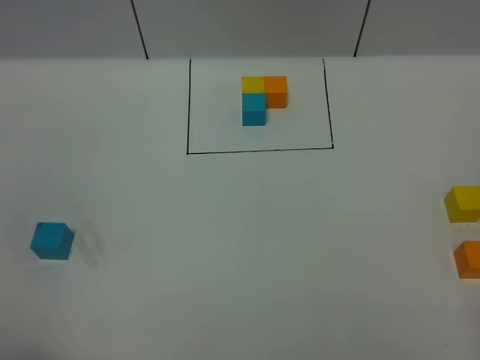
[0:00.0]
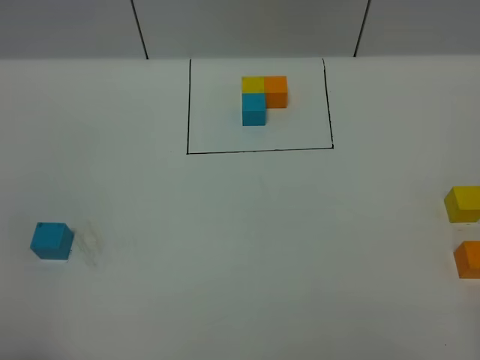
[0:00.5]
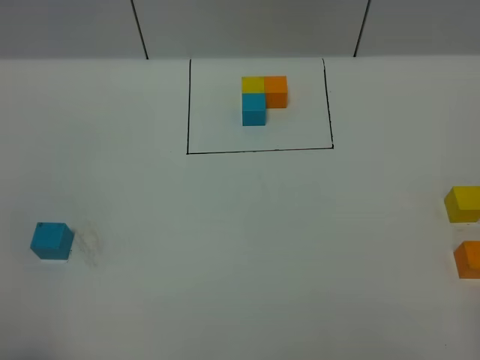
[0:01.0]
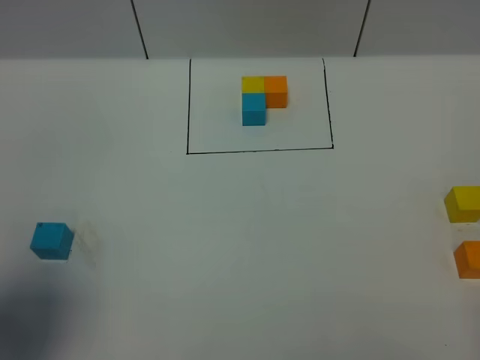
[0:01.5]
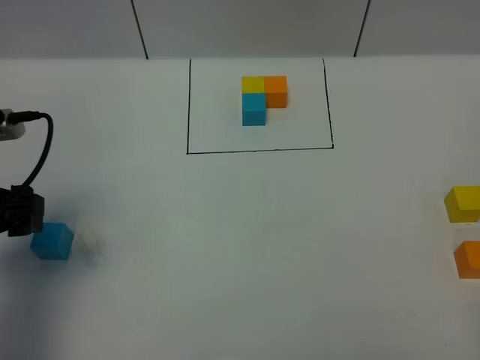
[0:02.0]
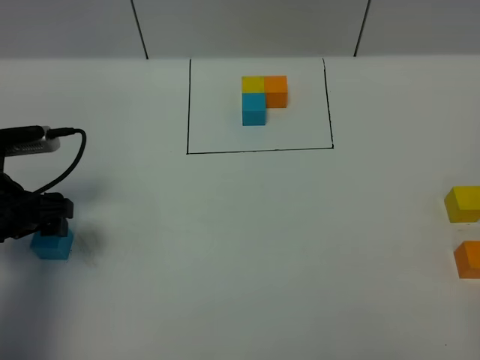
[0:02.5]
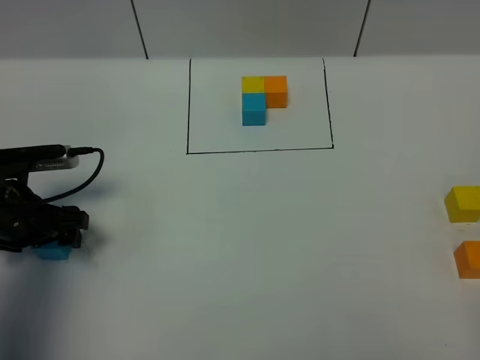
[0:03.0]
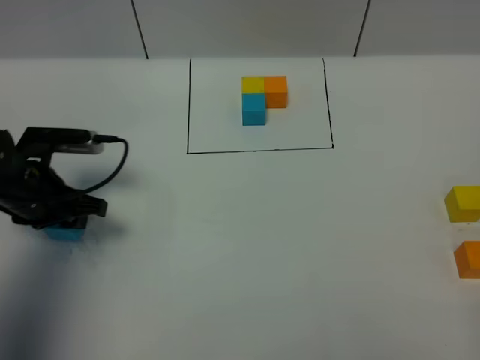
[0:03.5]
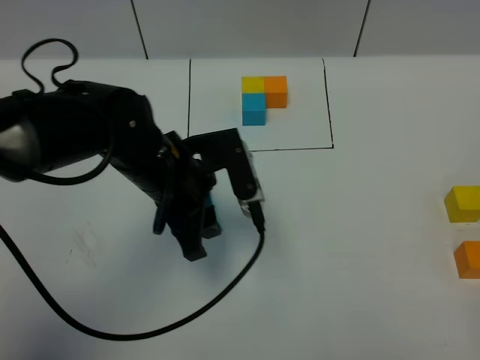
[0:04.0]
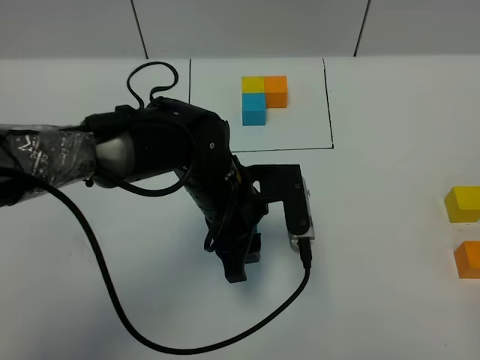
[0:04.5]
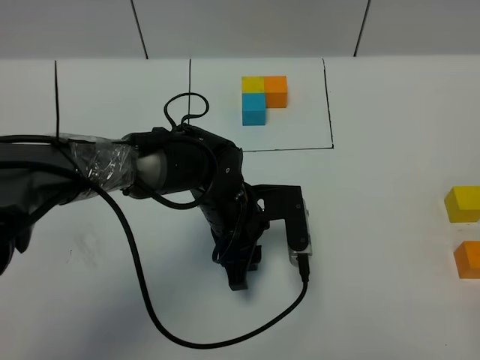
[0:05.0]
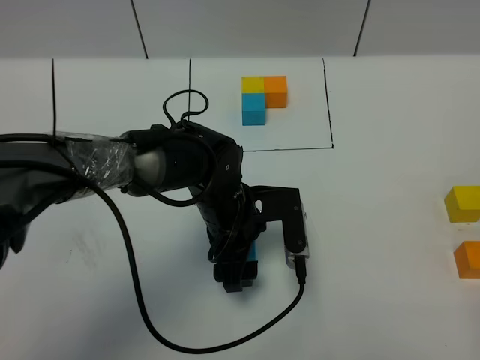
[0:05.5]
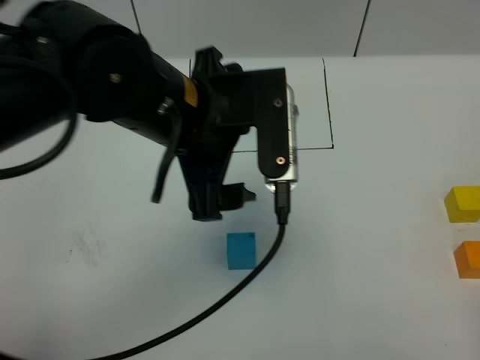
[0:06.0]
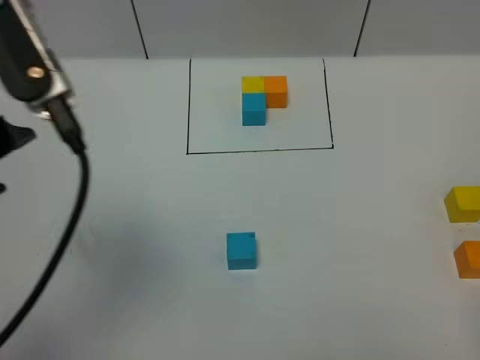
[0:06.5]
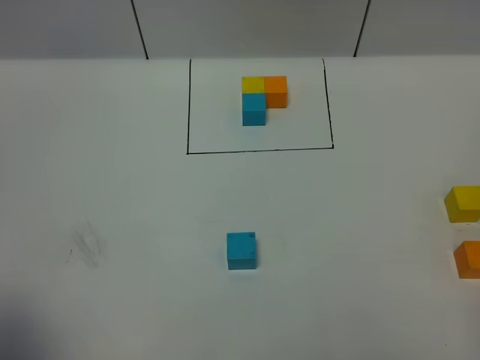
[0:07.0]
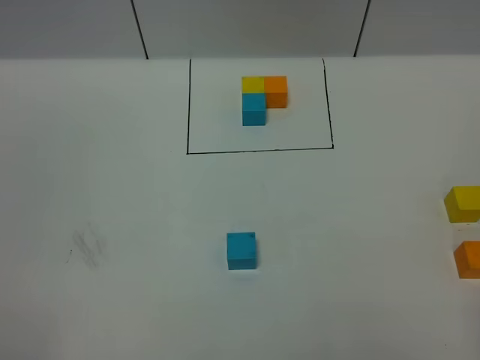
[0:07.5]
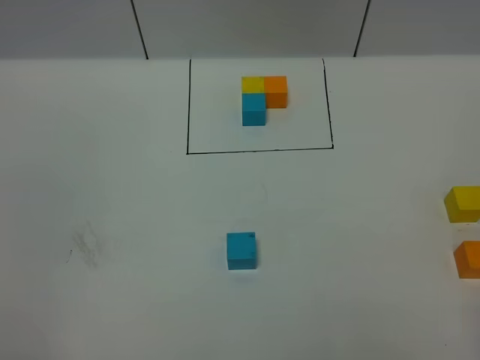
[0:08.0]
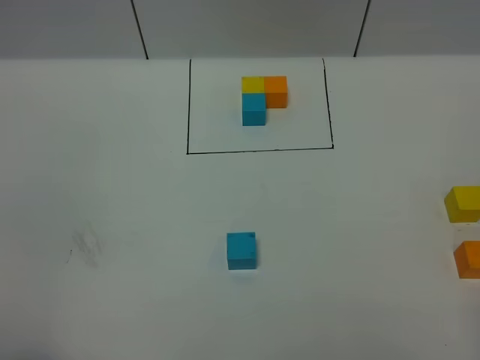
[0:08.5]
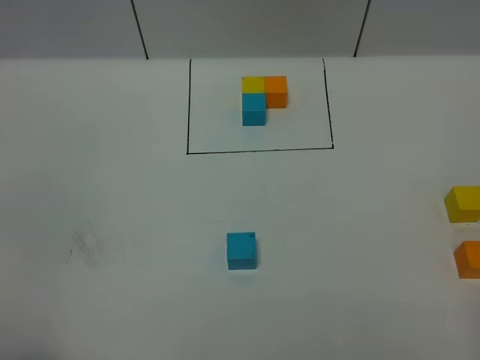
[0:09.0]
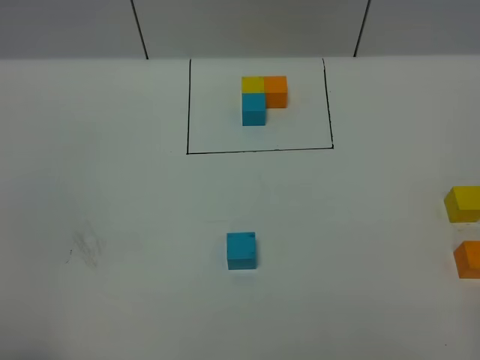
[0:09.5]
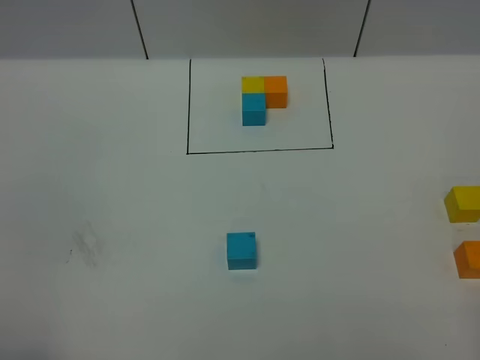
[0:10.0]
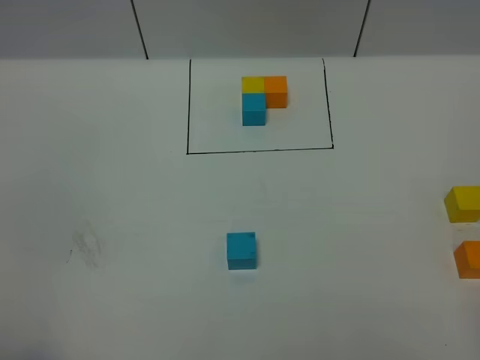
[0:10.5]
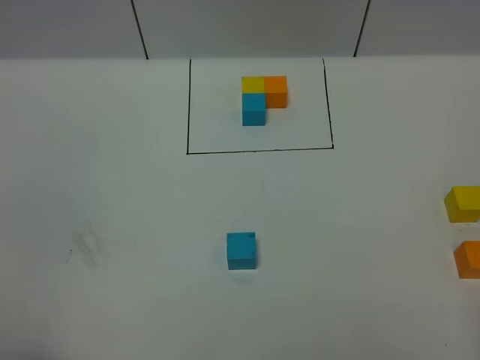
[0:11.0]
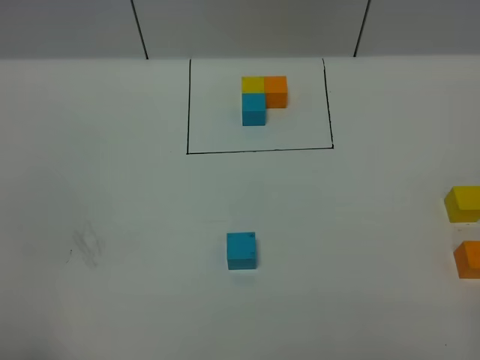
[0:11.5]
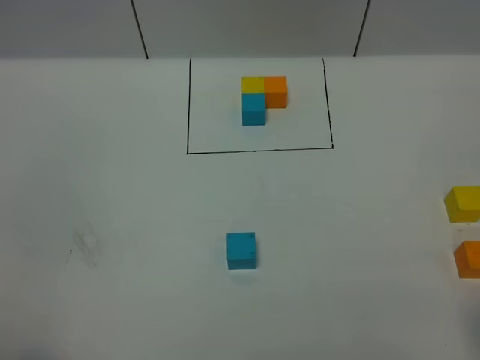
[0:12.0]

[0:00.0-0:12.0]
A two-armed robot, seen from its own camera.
Task of the whole recording: According to the building block template in front, assemble the scattered blocks together.
Step, 2.0 to 5.5 s: Put the blue cube in the center of the table.
0.0 to 2.0 s: The left gripper moves forward, roughly 25 cm.
2.0 to 4.0 s: The left gripper heads to the right, covering approximately 20 cm, and closes up.
4.0 to 6.0 s: The left gripper shifts approximately 15 cm upward, and opens its fingers.
6.0 to 8.0 s: The left gripper shifts roughly 40 cm backward and to the left, and closes.

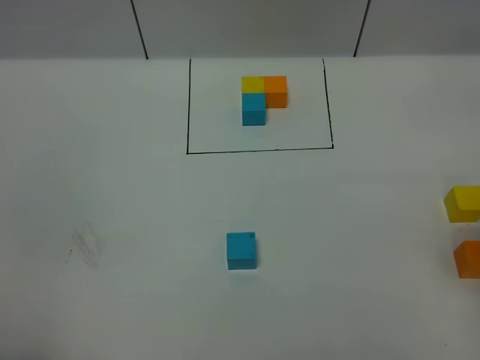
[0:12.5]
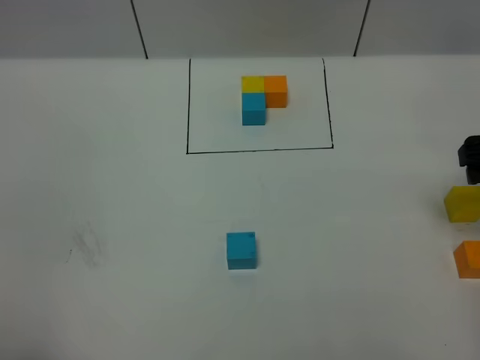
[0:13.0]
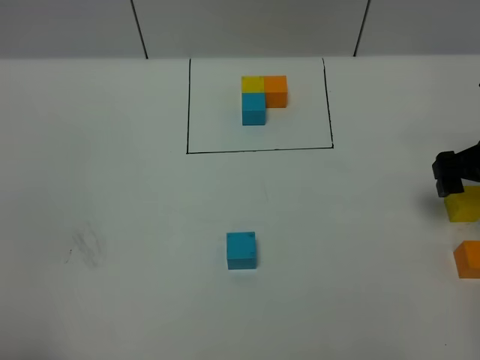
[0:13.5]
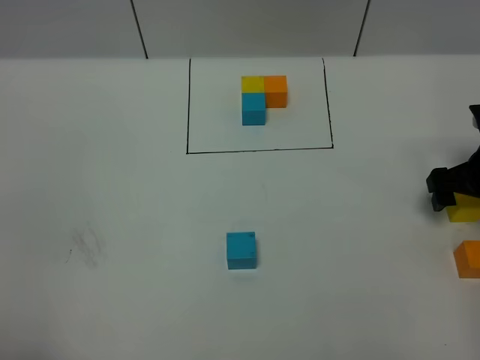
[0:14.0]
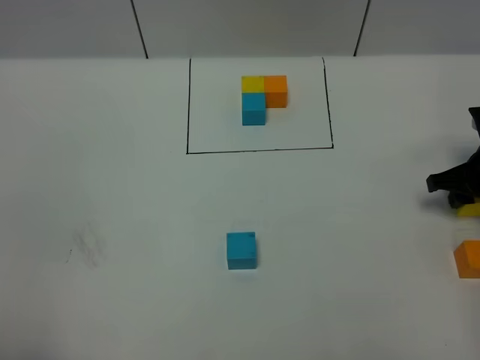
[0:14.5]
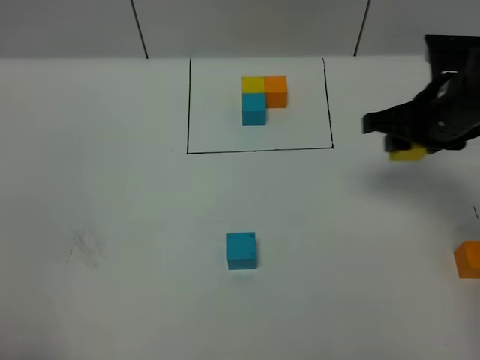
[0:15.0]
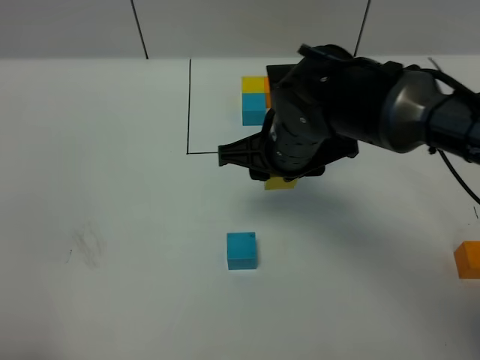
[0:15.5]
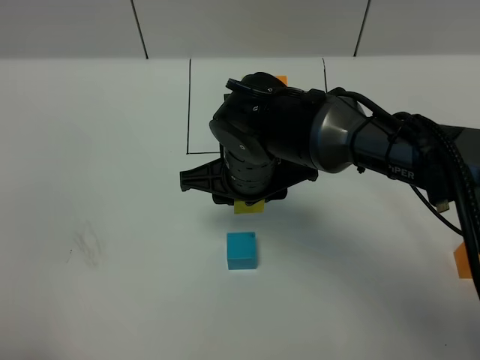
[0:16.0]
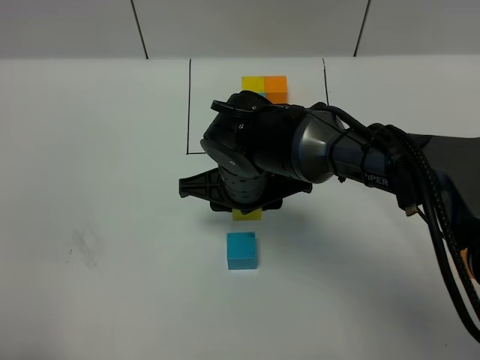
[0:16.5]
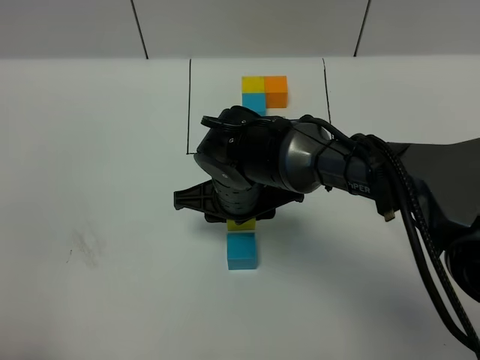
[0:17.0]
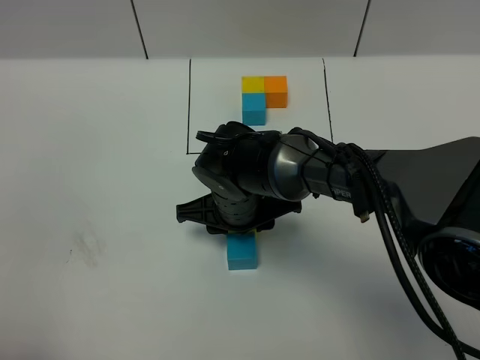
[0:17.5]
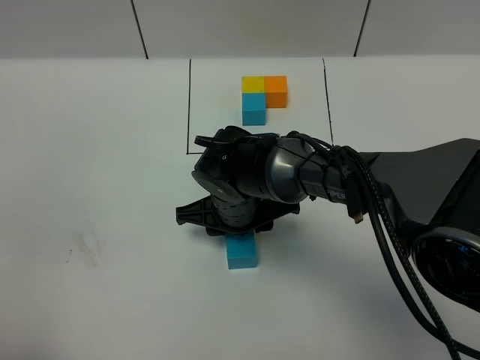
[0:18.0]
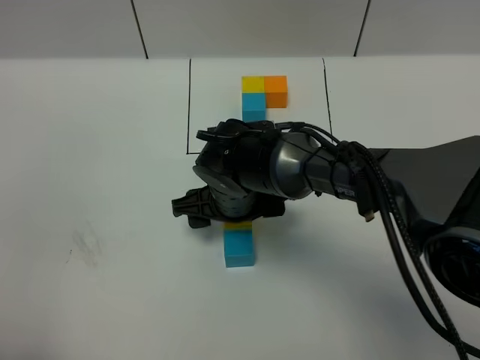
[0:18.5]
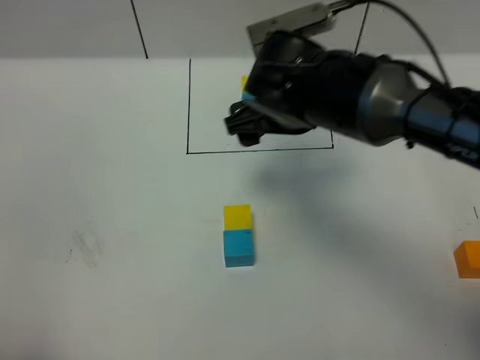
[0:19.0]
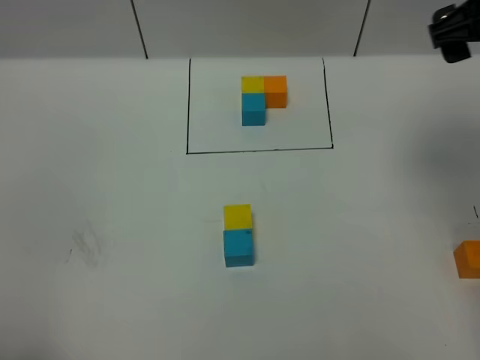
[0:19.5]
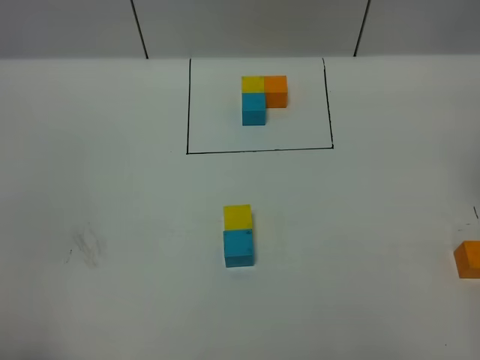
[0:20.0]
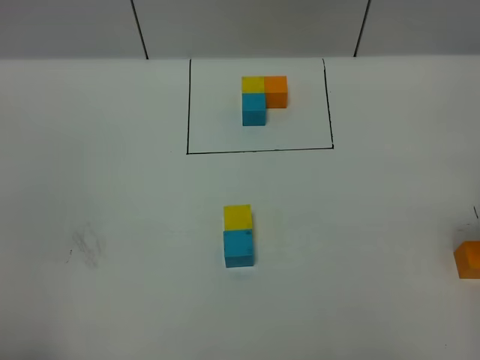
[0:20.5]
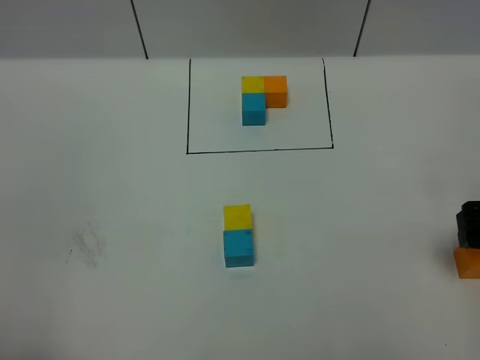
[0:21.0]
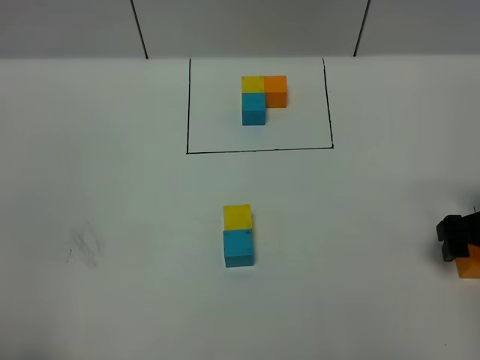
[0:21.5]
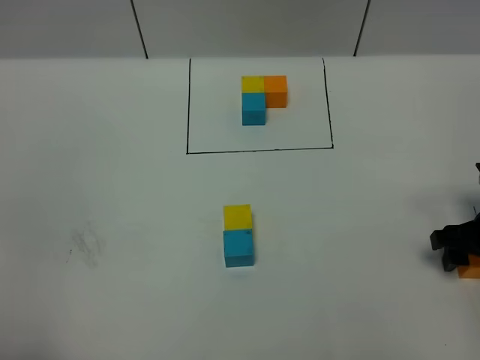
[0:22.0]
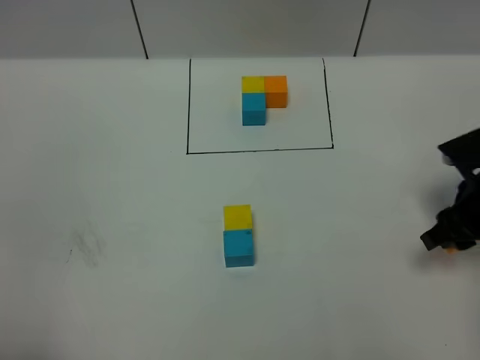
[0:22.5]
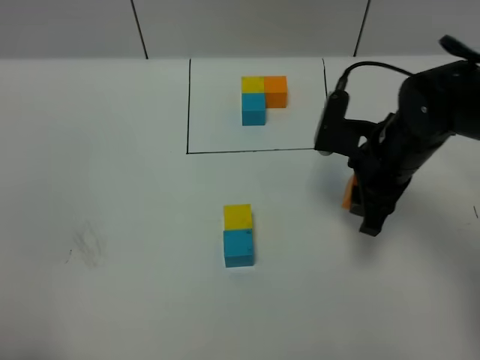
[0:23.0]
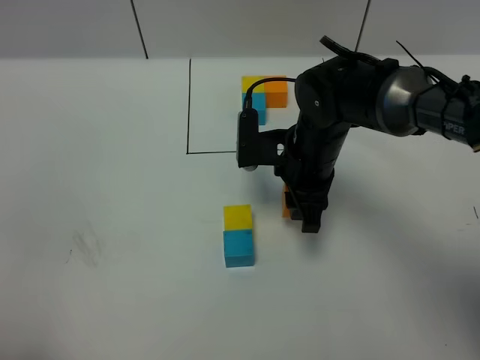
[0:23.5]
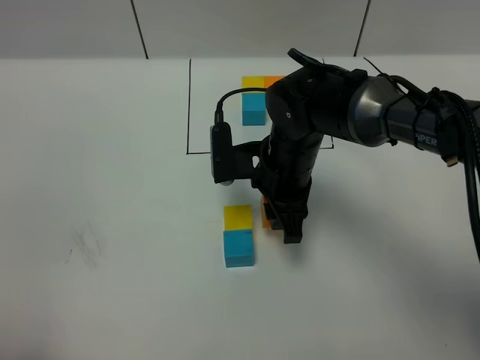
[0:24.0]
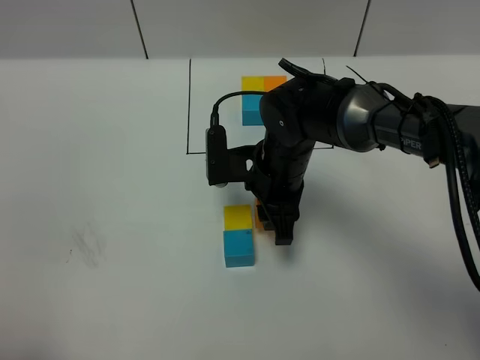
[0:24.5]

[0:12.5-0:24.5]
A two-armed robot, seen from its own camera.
Task of the whole recording: According to the building block template in front, assemble the scattered blocks together.
Step, 12.5 to 18.5 s: Put the yellow cube on the behind of the blue cube.
12.5 to 14.5 s: The right gripper heads downward and forward, covering about 25 cm, and closes up.
14.5 to 16.5 s: The right gripper shifts some 35 cm to the left.
16.5 to 18.5 s: The right gripper opens up.
18.5 to 20.5 s: The right gripper heads to the right, covering about 35 cm.
20.5 to 22.5 s: The right gripper travels downward by roughly 10 cm, and closes.
22.5 to 24.5 s: The right gripper shifts some 25 cm to the left.

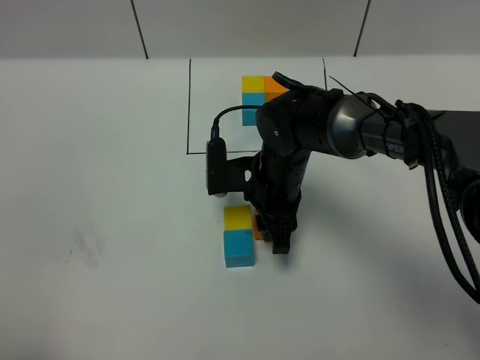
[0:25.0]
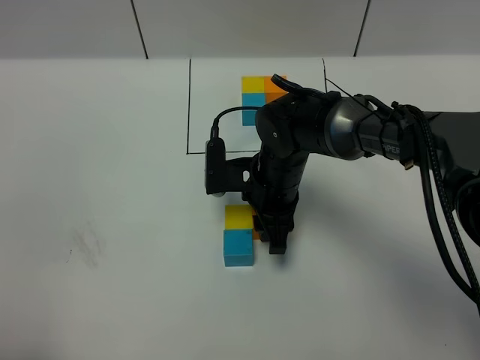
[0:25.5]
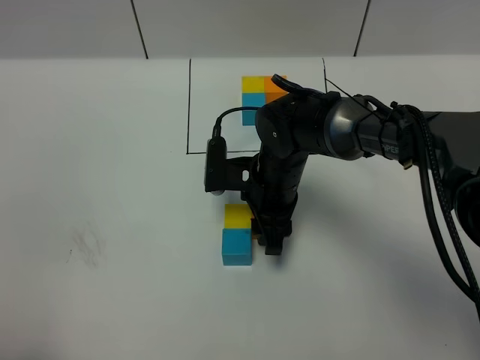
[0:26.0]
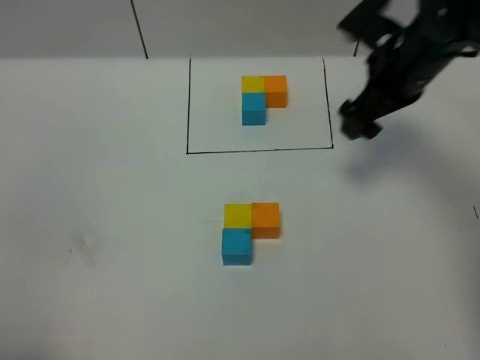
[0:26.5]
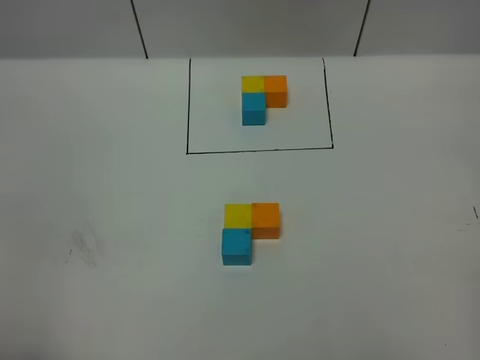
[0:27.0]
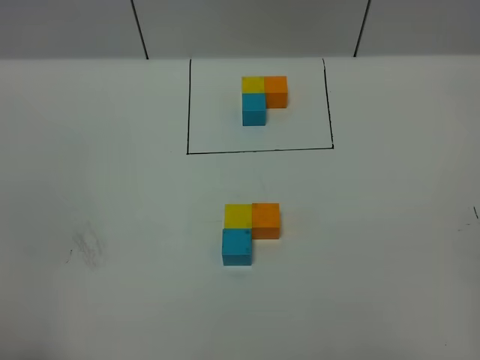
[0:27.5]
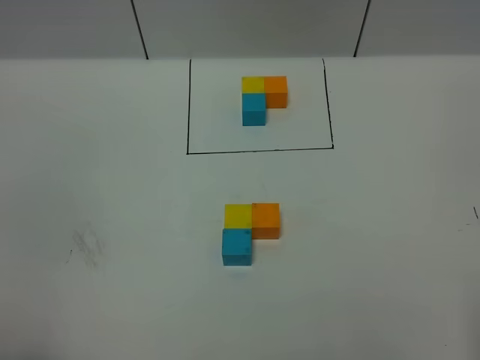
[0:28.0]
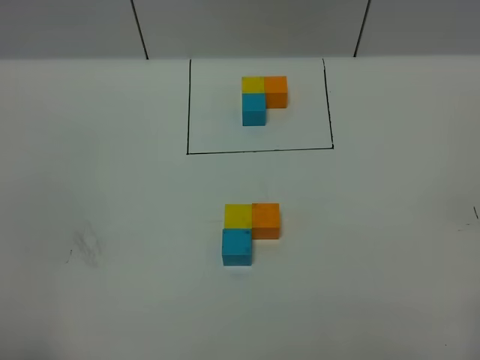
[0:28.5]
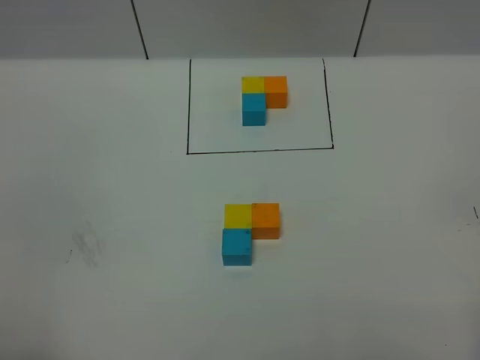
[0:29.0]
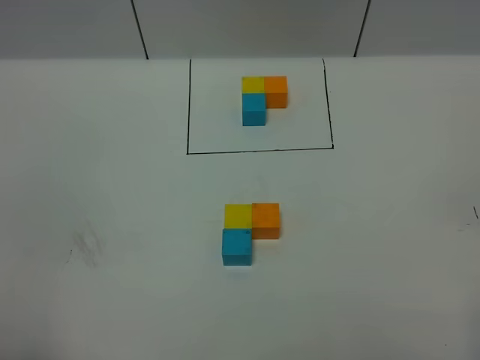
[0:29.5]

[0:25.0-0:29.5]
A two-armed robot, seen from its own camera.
Task of the whole recording: According to the building block template in front, assemble the scattered blocks together.
25.0 to 27.0 s: The right gripper moves to the right and upward, about 40 cm, and opens.
